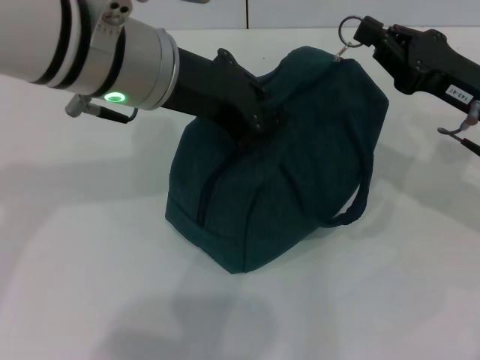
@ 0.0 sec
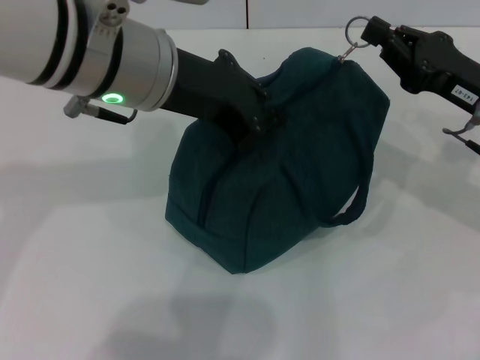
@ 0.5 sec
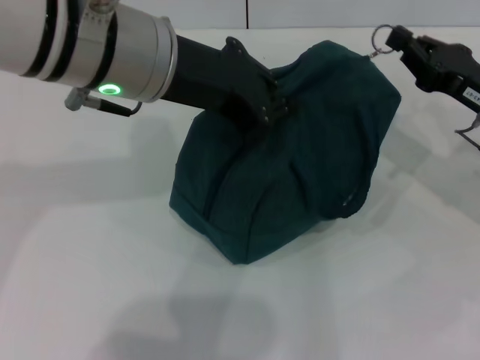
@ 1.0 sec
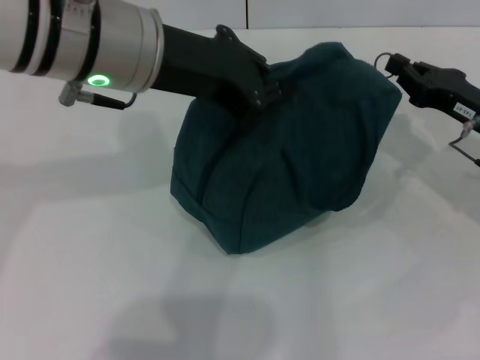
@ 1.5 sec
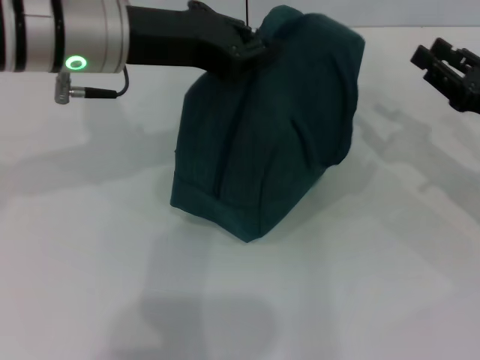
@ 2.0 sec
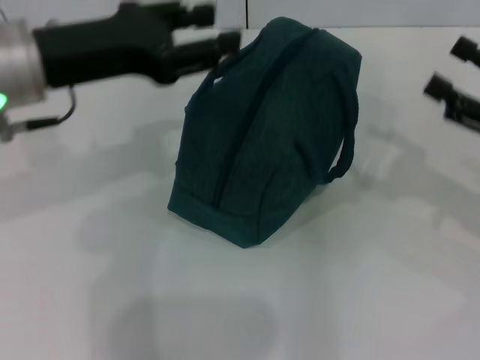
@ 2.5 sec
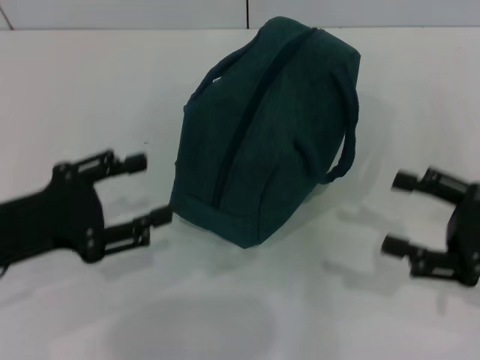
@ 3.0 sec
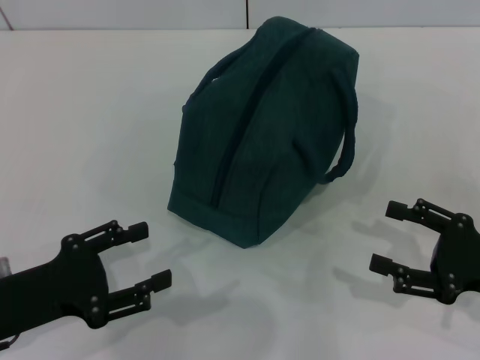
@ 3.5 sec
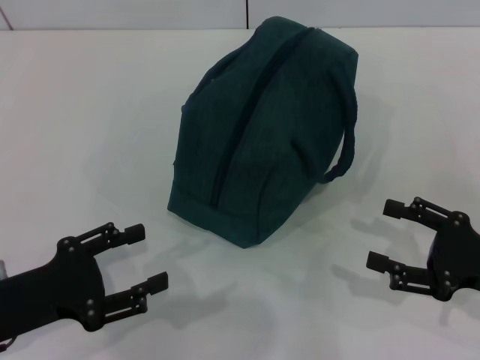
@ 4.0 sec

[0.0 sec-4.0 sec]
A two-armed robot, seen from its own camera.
0.0 sec to 2.0 sec: The right gripper travels to the right by some 5 cm.
2.0 sec to 4.0 sec: The left gripper heads backward, downward and to the left, covering approximately 25 cm, and opens up. The right gripper heads backward, covering some 10 cm, and opens its fingers.
